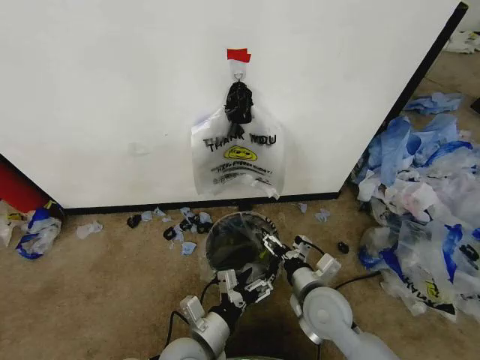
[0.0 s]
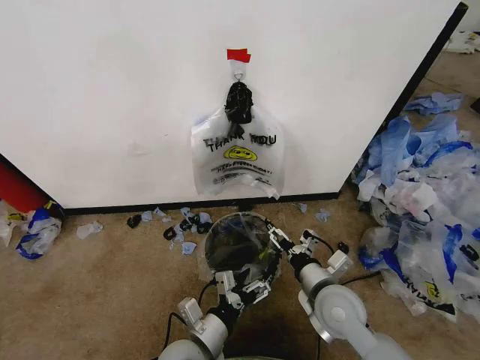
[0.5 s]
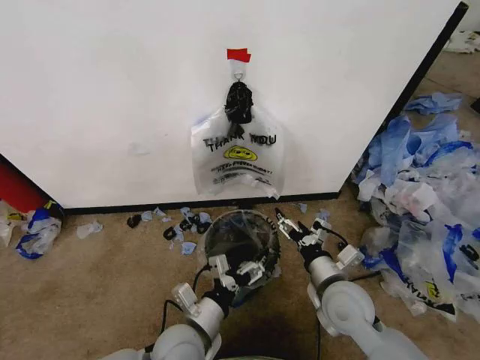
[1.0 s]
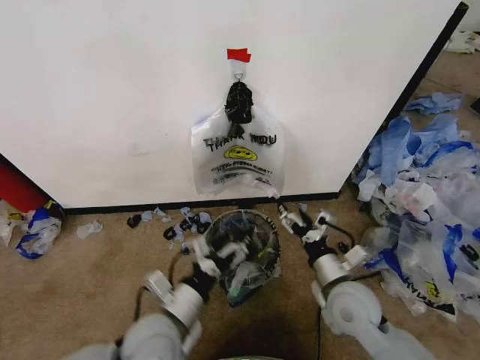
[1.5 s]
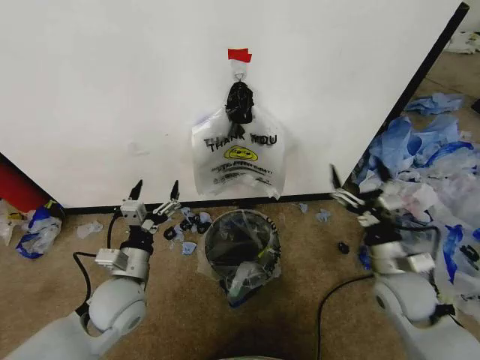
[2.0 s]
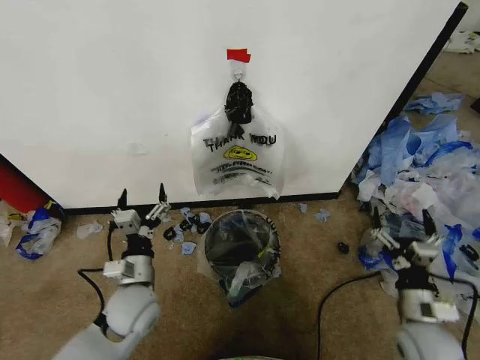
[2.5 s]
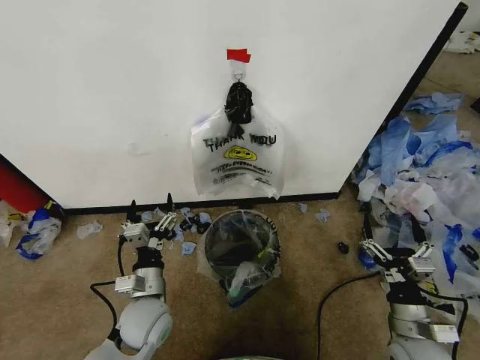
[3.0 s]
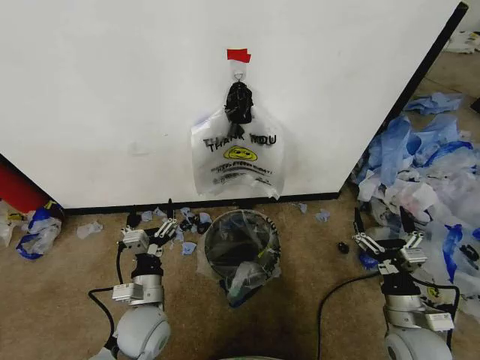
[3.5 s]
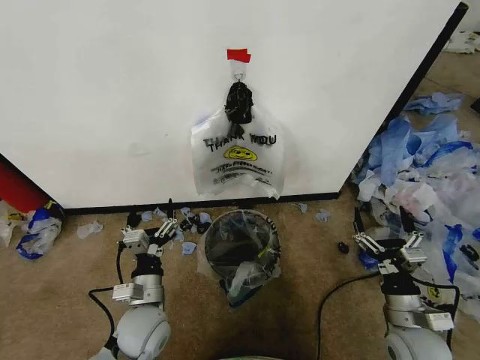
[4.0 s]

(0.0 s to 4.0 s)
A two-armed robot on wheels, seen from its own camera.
Task of the whole recording: Pick up the garbage bag from the wall and place it over the trash bin.
0.0 s - 2.0 s: The left gripper shifts about 15 cm to the left, forward and upward; the right gripper travels to the right by roughly 15 cm.
2.0 s - 4.0 s: The left gripper heads downward, covering roughly 5 cm. The right gripper goes approximately 10 cm backward and downward.
